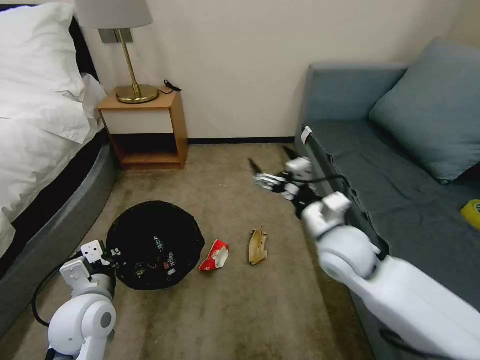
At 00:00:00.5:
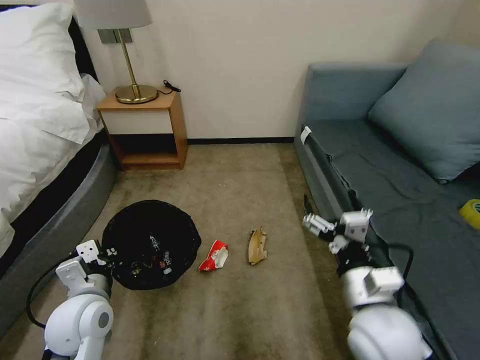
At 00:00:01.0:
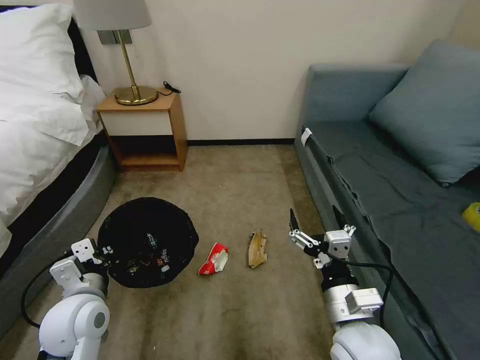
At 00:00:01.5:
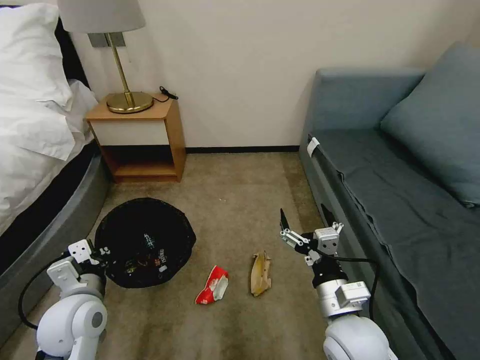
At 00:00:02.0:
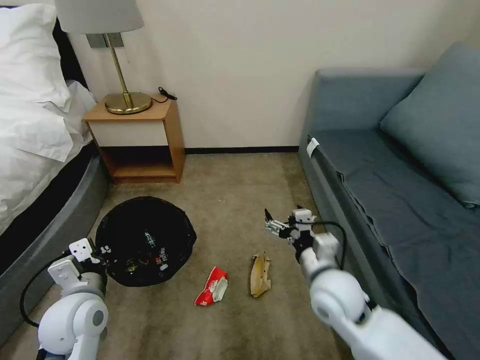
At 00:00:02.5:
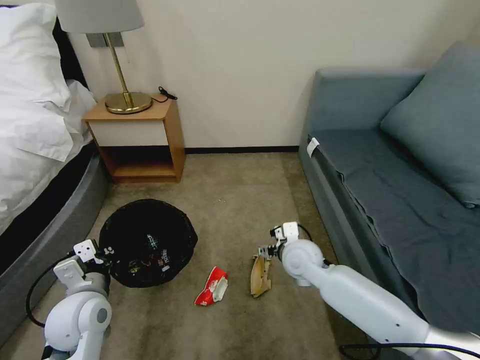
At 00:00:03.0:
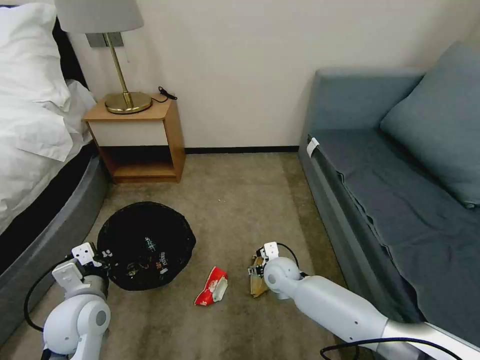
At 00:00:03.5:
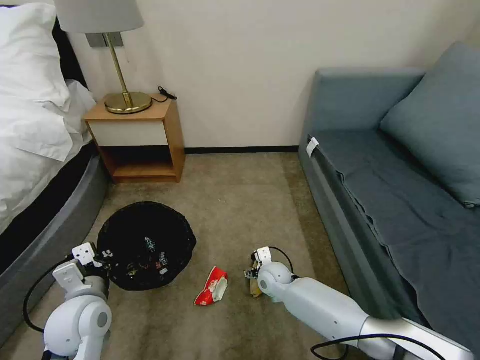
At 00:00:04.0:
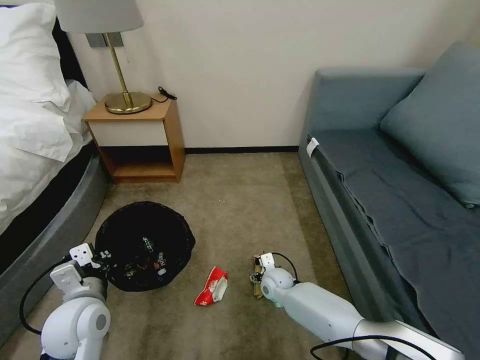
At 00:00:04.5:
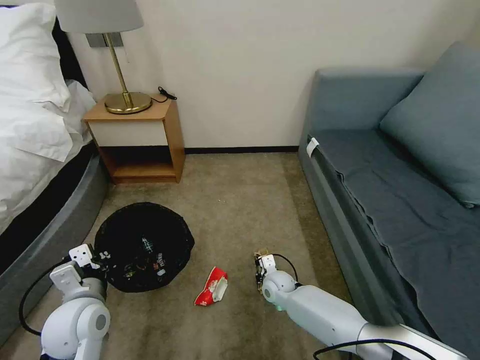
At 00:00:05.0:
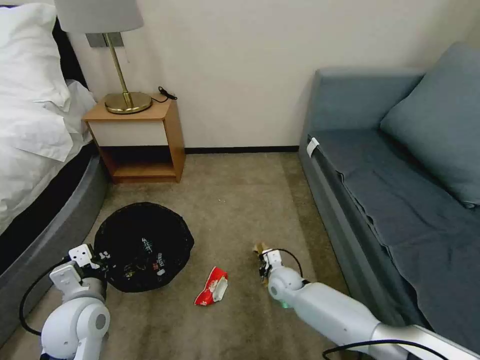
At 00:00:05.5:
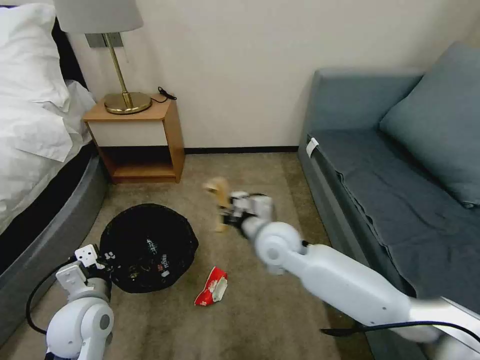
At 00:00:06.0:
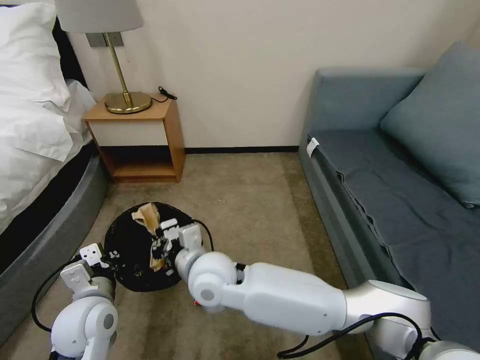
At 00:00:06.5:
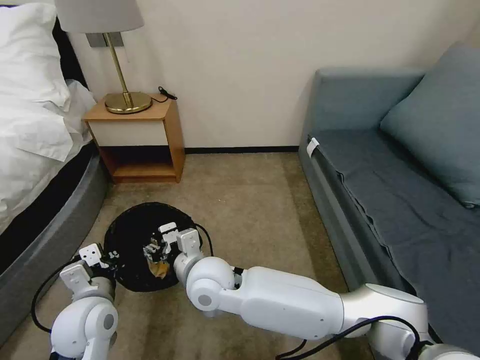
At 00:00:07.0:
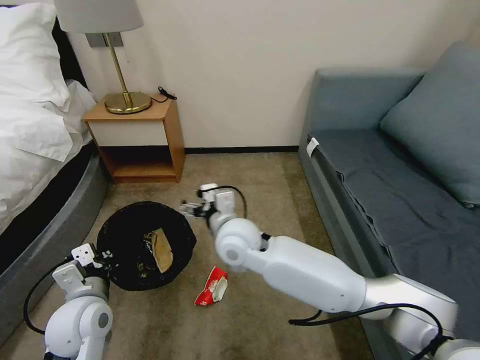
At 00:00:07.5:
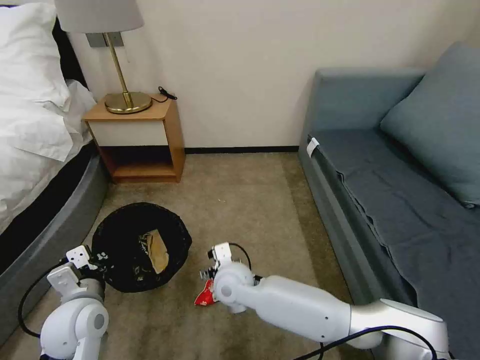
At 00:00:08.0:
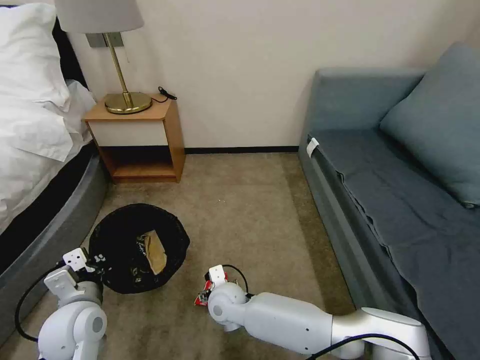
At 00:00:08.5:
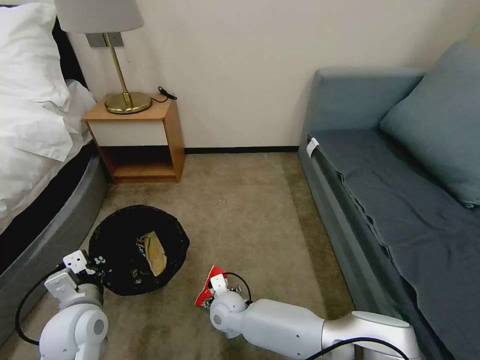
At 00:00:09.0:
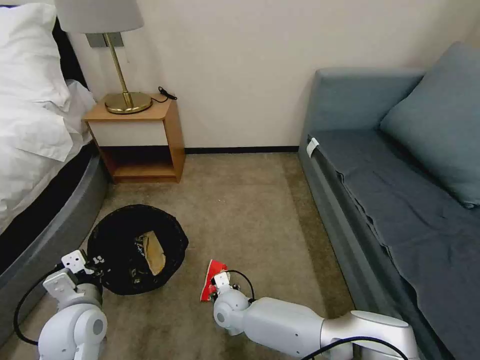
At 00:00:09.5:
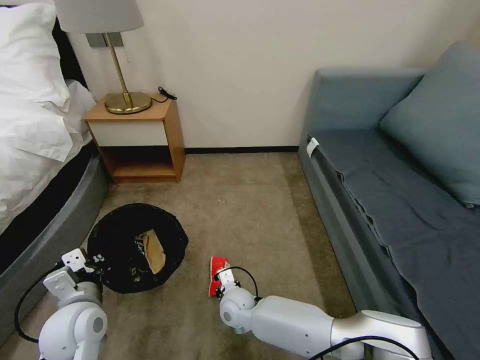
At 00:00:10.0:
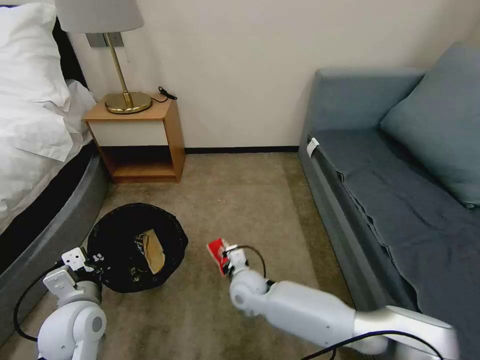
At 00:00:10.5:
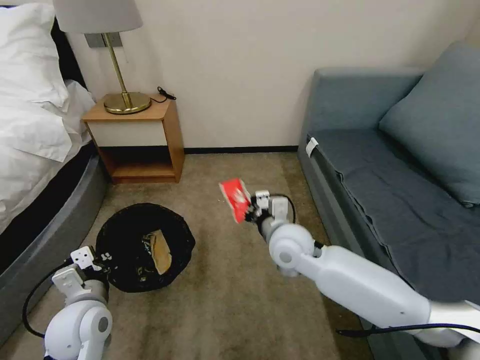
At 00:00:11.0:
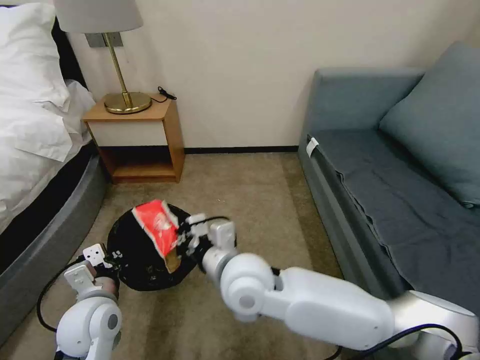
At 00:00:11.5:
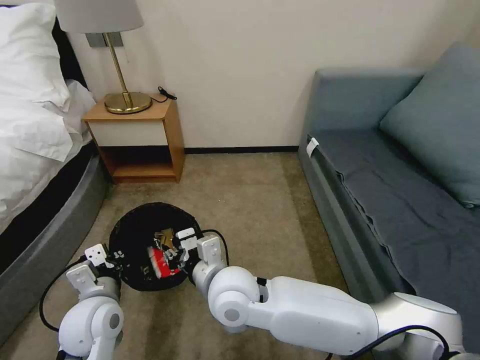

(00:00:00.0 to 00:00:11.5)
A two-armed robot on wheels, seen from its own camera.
Task of the whole recording: Pick up the trash bin, then pick up the garbage on the floor and place it into the trash bin.
00:00:00.0 - 00:00:02.0: The right gripper is displaced downward and backward by roughly 10 cm.
00:00:02.0 - 00:00:04.0: The right gripper goes about 25 cm downward and forward.
00:00:04.0 - 00:00:06.0: The right gripper moves upward and to the left, some 30 cm, and closes up.
00:00:06.0 - 00:00:07.5: The right gripper goes approximately 10 cm downward, and opens up.
00:00:07.5 - 00:00:09.5: The right gripper is displaced downward by approximately 15 cm, and closes up.
00:00:09.5 - 00:00:11.5: The right gripper heads upward, covering roughly 25 cm.

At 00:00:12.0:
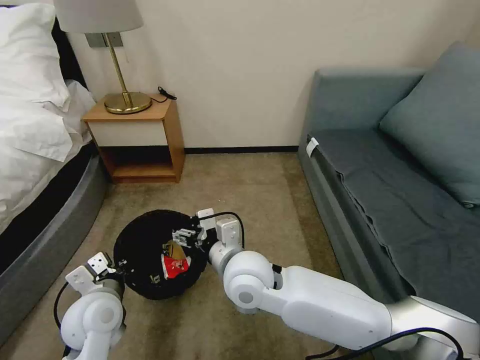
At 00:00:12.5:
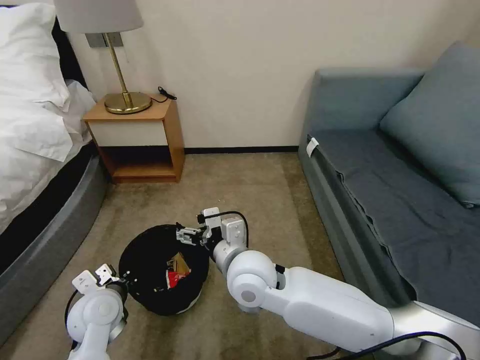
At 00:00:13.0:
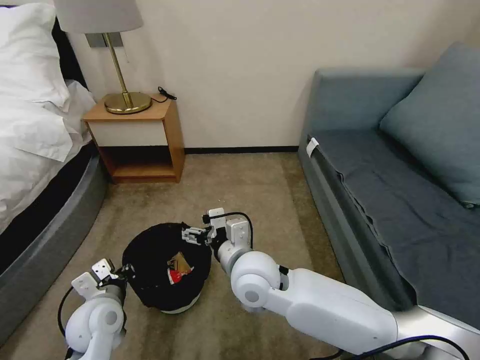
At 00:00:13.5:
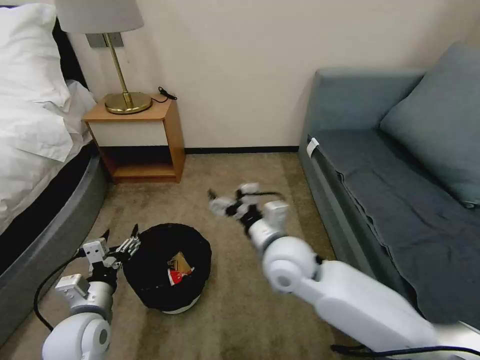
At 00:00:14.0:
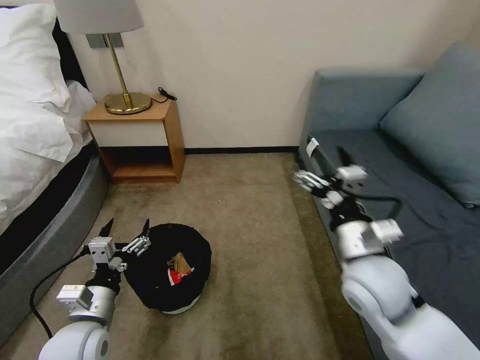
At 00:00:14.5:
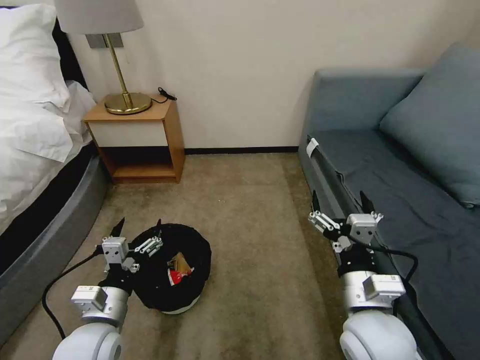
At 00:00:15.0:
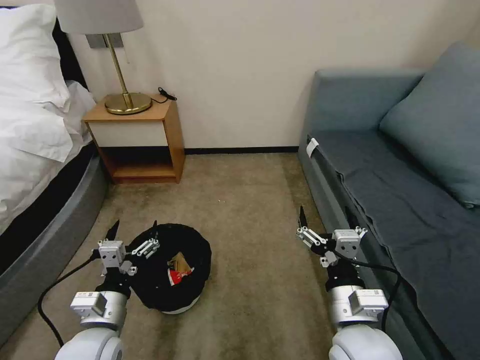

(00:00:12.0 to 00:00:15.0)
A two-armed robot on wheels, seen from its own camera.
Task of the whole recording: Pick up the trash bin, then pick up the garbage on the floor and place it into the trash bin.
00:00:12.0 - 00:00:13.5: The left gripper opens its fingers. Meanwhile the right gripper shifts about 10 cm to the right.
00:00:13.5 - 00:00:15.0: The right gripper shifts roughly 15 cm backward and to the right. Meanwhile the left gripper changes place by about 5 cm.

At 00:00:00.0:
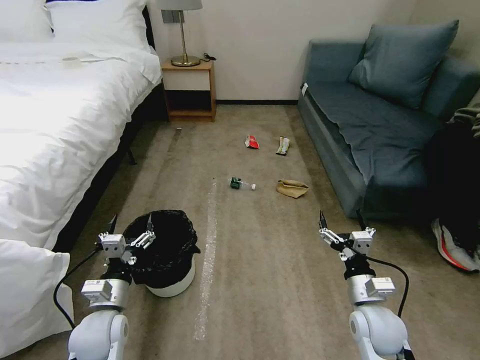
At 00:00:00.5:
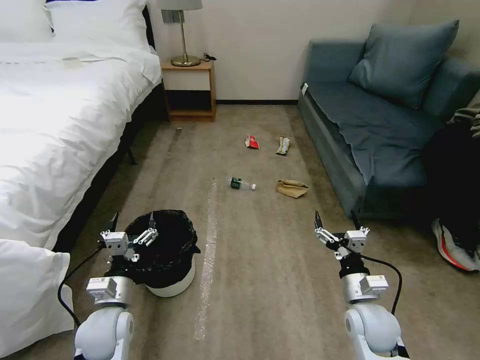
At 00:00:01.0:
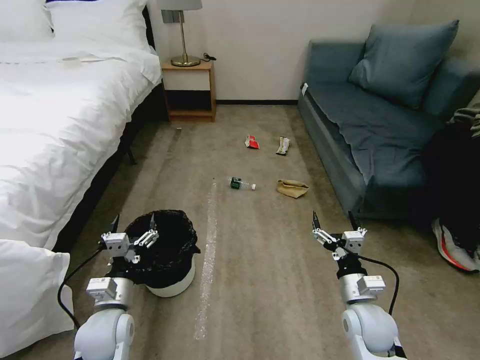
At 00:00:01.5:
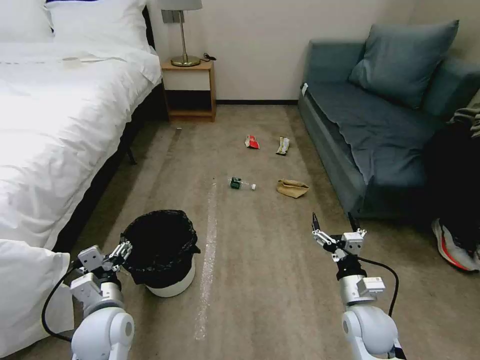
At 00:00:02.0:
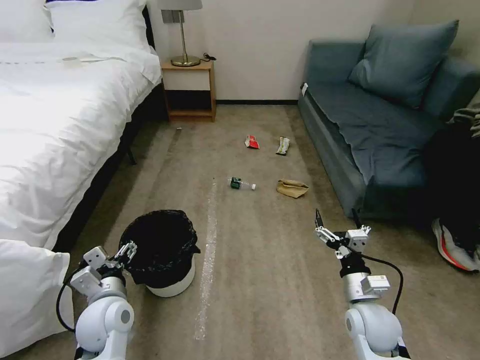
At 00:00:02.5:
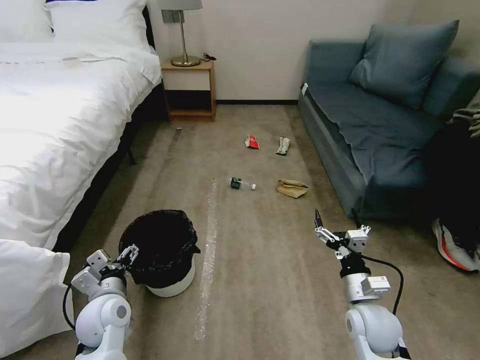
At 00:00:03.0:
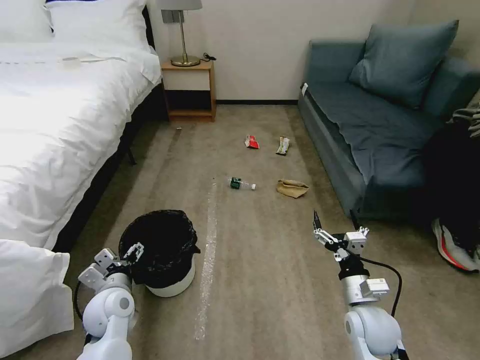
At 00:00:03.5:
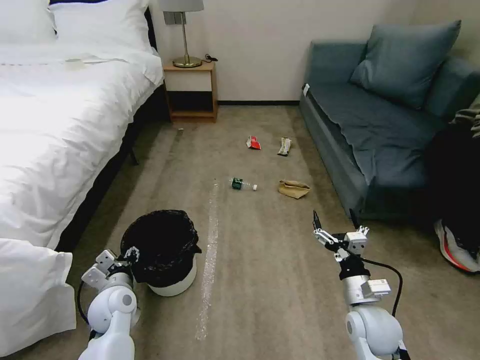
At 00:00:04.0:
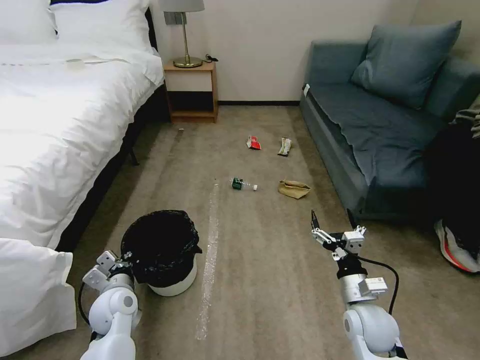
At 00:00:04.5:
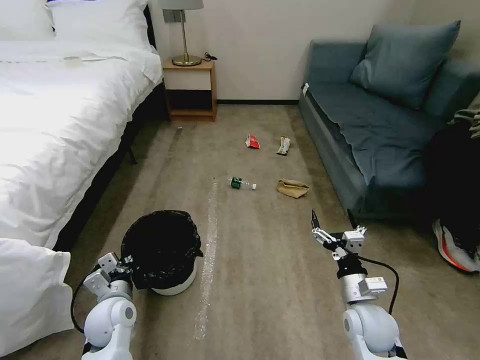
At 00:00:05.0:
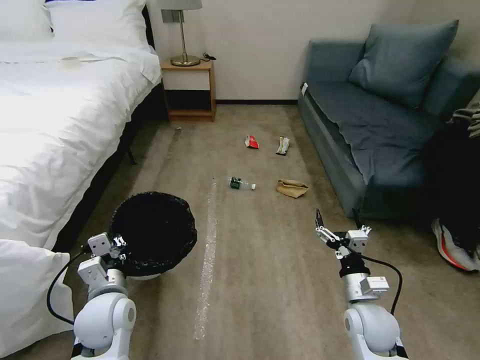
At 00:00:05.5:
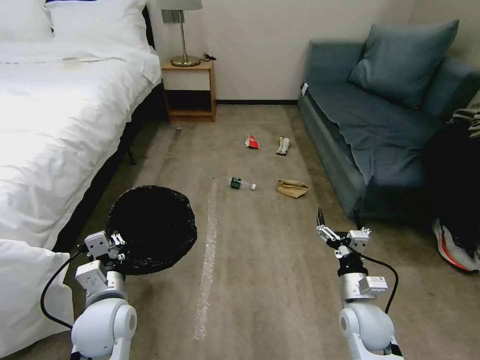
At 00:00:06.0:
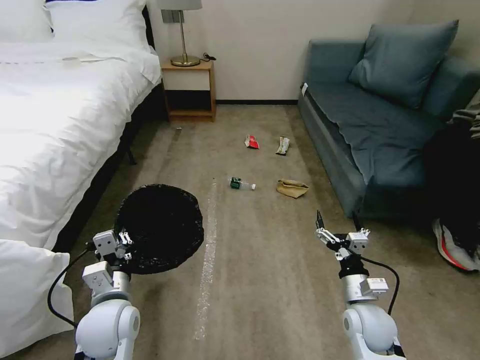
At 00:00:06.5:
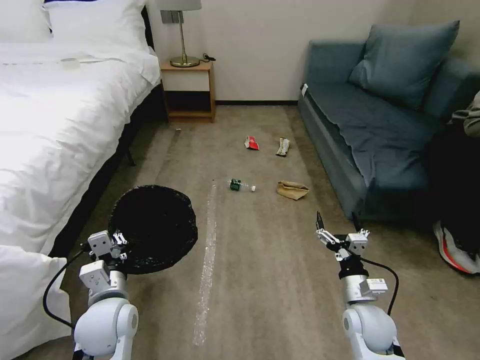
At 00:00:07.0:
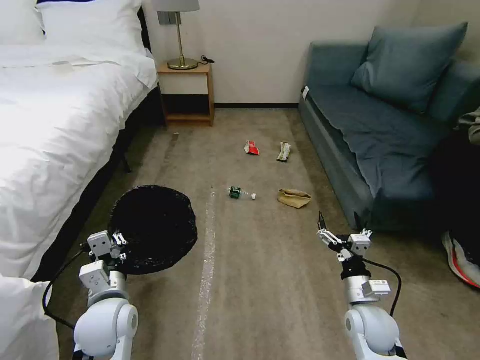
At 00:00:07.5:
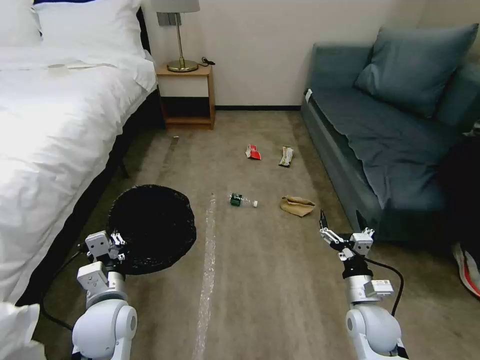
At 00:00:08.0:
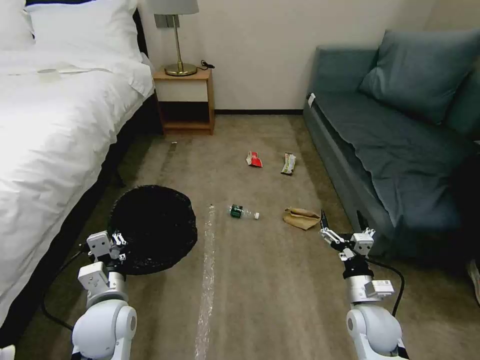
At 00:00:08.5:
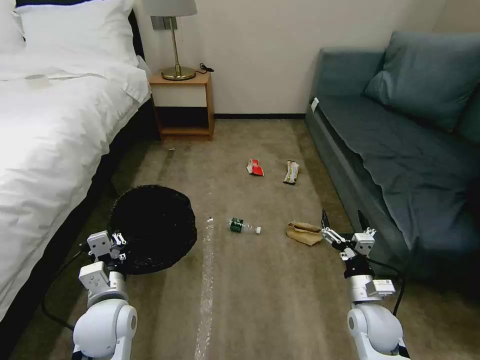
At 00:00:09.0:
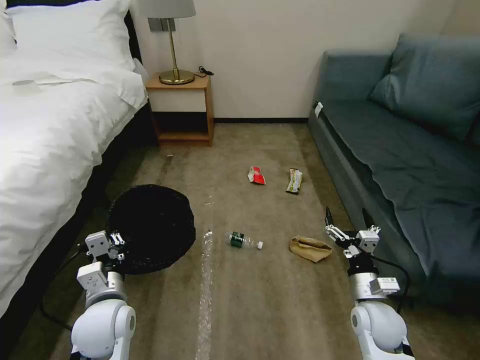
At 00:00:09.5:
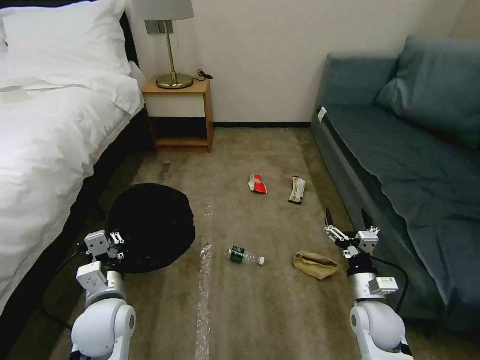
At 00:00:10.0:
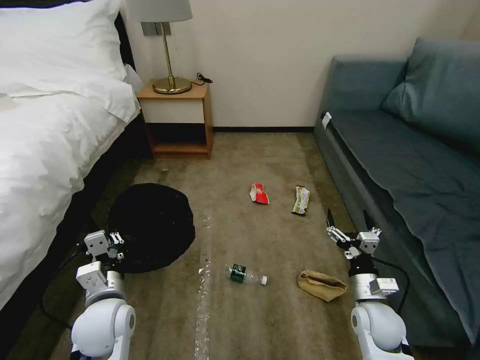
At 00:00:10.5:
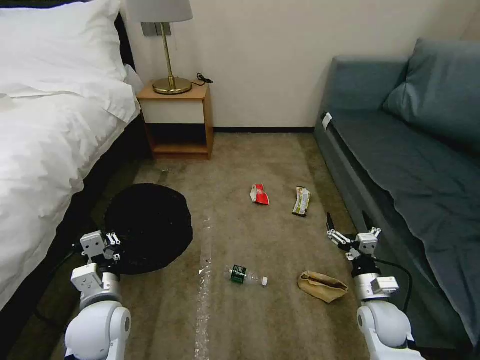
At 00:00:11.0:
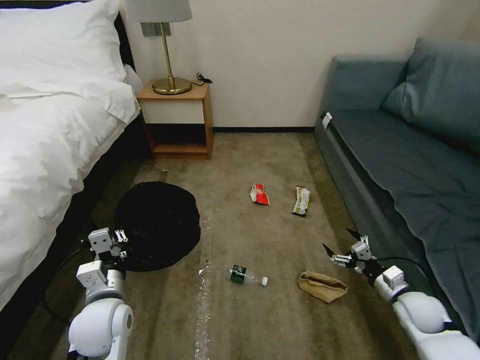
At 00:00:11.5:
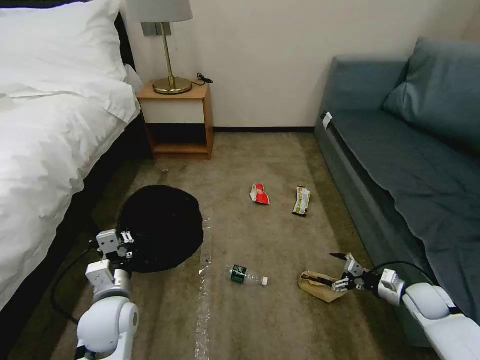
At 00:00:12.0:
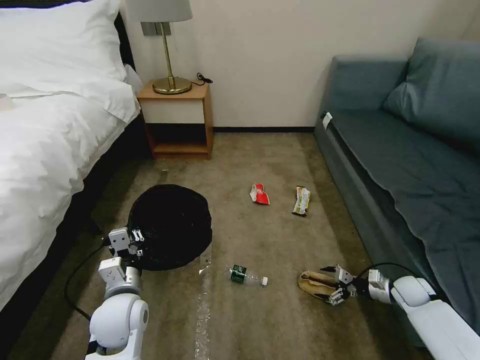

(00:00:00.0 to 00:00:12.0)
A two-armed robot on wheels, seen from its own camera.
Task of the whole recording: Pick up the trash bin, then pick up the garbage on the floor and place it into the trash bin.
00:00:02.0 - 00:00:04.0: The left gripper is displaced downward by roughly 5 cm, and closes up.
00:00:04.0 - 00:00:06.0: The left gripper shifts about 10 cm upward and backward.
00:00:10.0 - 00:00:12.0: The right gripper is displaced to the right, forward and downward by about 25 cm.
